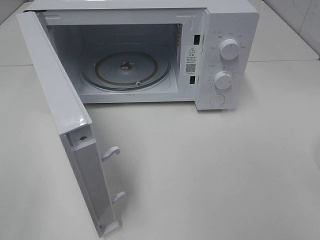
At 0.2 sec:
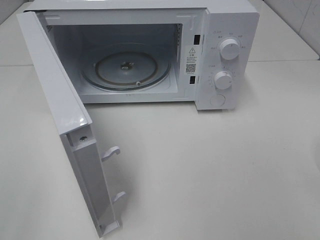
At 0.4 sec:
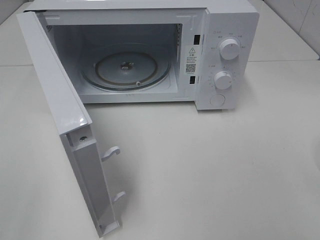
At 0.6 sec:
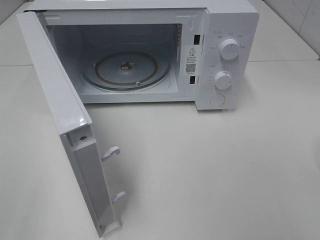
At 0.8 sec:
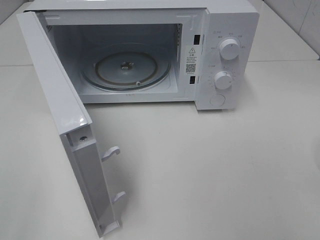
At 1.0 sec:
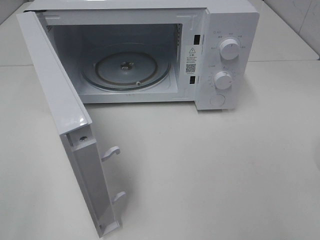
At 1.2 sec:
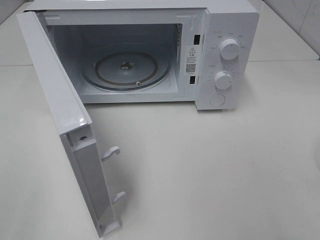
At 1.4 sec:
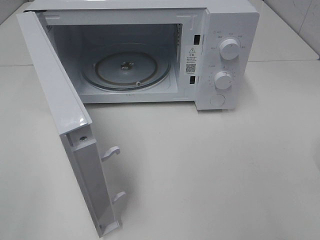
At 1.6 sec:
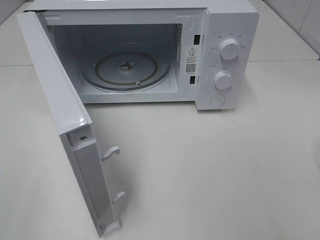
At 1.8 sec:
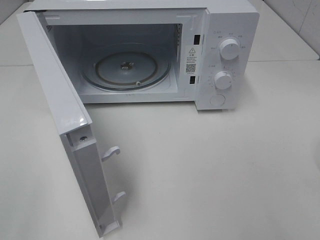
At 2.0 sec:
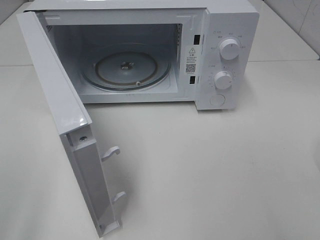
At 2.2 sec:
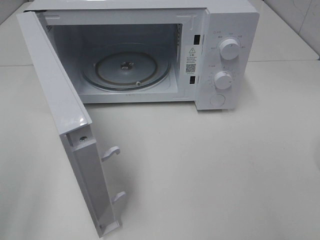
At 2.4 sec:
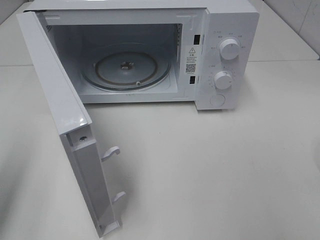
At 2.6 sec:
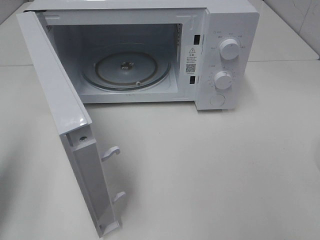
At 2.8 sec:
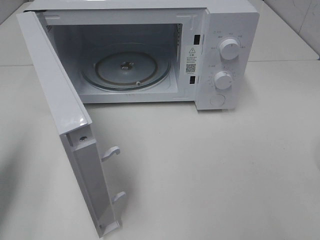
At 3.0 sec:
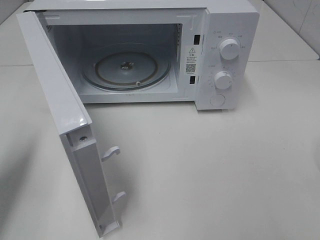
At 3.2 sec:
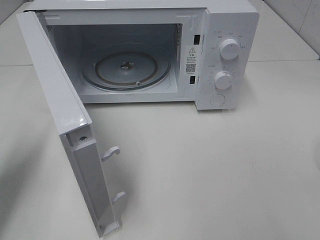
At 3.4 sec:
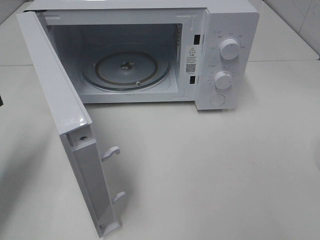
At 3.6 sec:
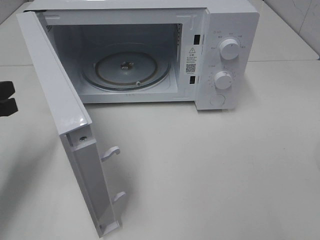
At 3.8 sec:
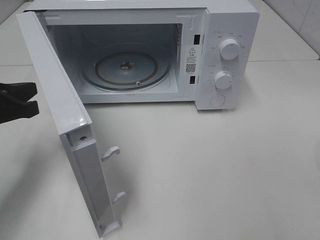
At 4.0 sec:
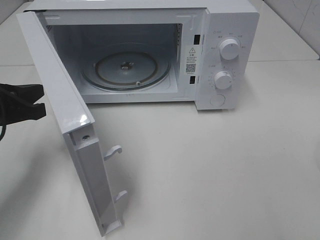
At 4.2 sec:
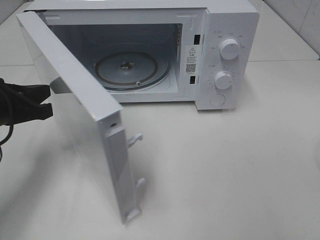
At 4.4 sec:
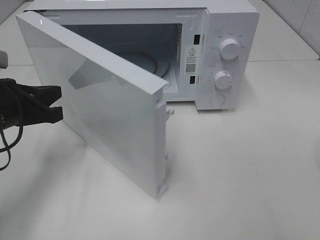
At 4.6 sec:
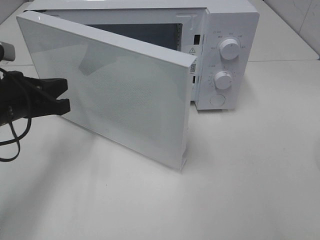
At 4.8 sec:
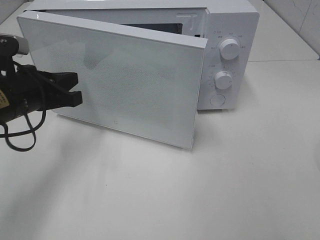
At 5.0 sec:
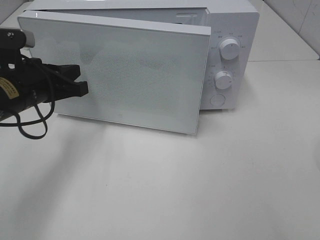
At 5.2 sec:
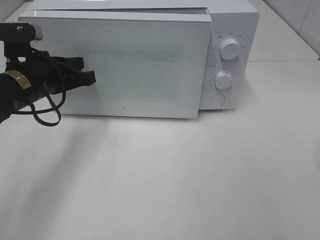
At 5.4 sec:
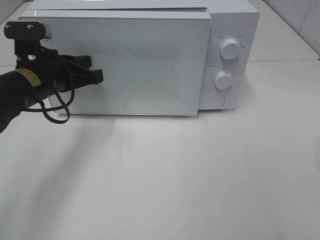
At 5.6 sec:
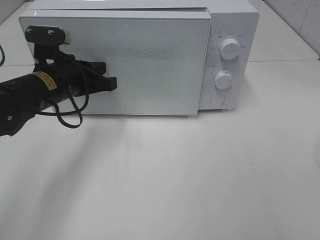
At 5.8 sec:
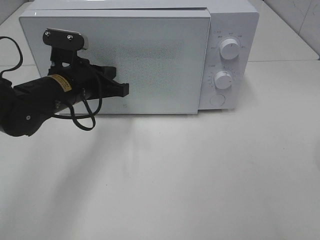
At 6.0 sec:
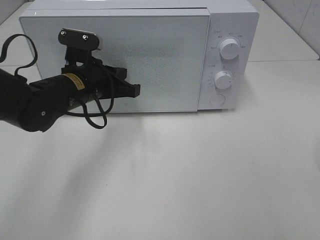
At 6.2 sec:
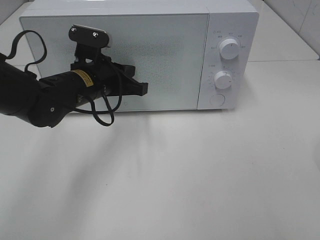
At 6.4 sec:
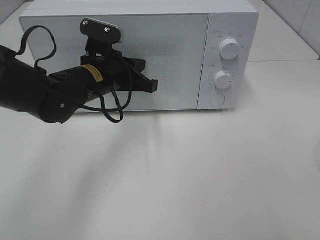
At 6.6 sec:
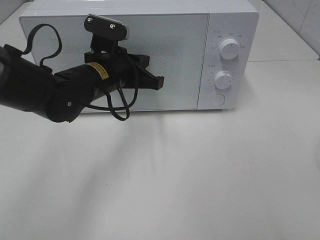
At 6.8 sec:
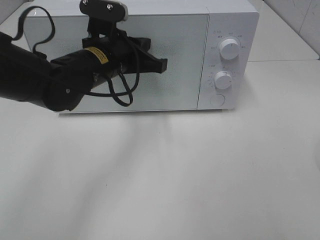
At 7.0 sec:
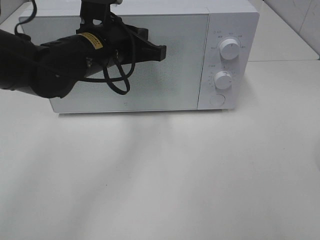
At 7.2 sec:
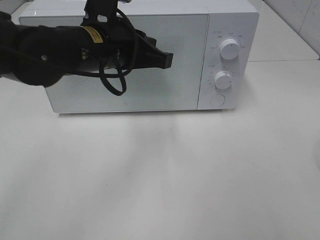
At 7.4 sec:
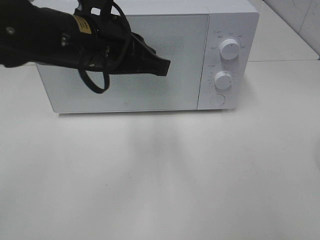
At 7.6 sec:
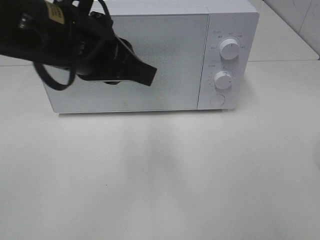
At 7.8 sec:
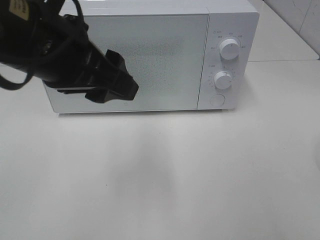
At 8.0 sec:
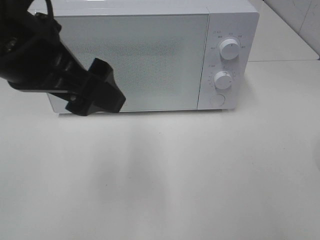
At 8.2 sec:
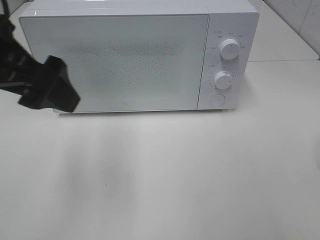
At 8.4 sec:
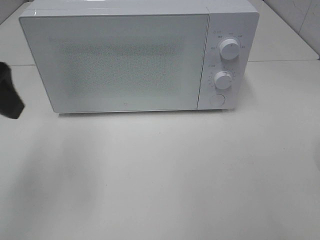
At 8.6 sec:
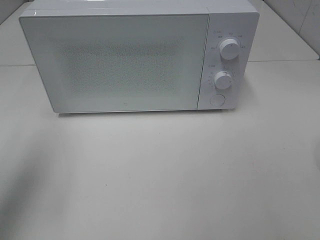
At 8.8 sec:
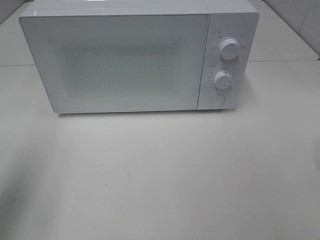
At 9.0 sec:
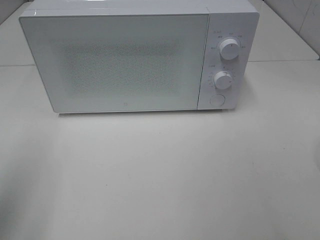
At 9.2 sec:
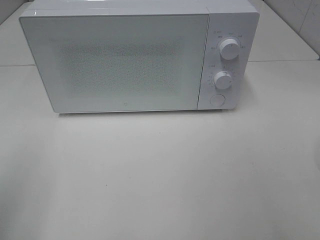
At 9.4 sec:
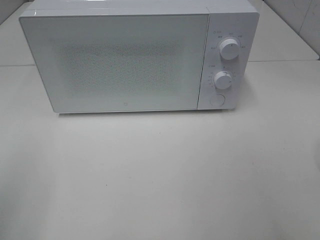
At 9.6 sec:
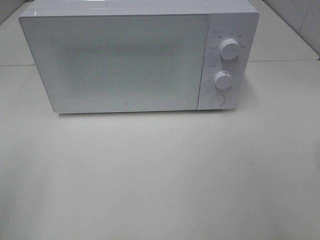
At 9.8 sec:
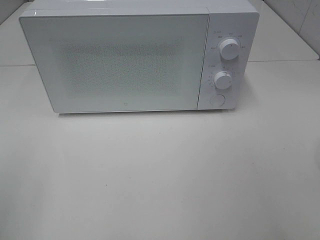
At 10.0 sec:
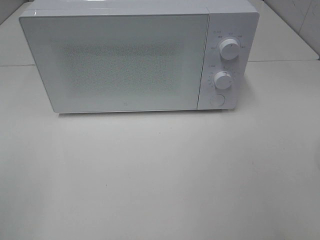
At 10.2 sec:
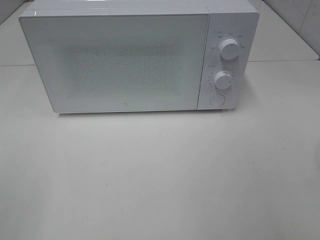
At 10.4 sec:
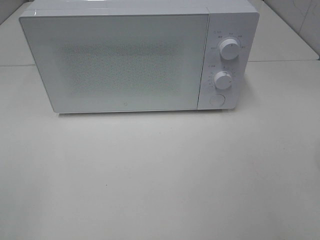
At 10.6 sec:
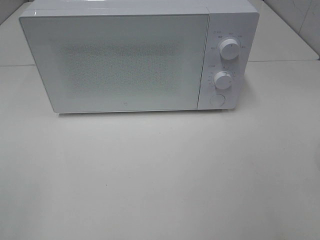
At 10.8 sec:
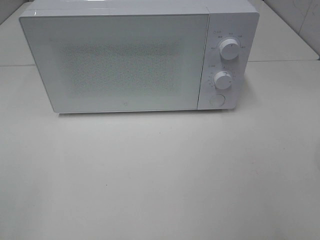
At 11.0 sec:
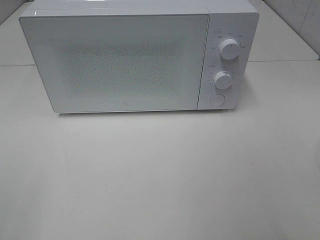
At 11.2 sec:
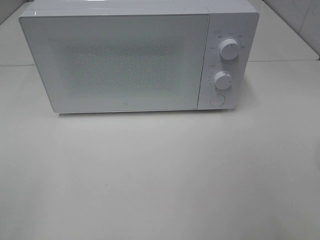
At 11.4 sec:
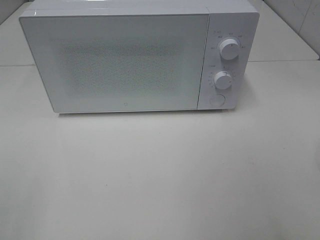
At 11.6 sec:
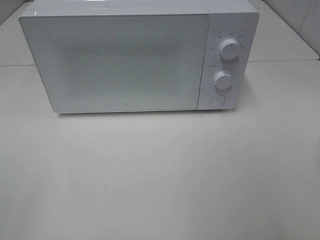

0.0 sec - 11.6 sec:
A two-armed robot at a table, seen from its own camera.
Task of the whole recording: Heat the burger.
Step, 0.0 sec - 6.8 sec: Left hand: close the microwave door.
0.0 sec - 1.4 sec: Neither gripper changes place.
1.4 sec - 2.8 sec: The left gripper moves forward, approximately 20 cm, and closes up.
2.8 sec - 4.4 sec: The left gripper heads to the right, downward and forward, covering roughly 15 cm.
4.4 sec - 5.8 sec: The left gripper travels to the right and forward by approximately 10 cm.
5.8 sec - 7.2 sec: The left gripper travels upward and to the right by about 10 cm.
7.2 sec - 8.8 sec: The left gripper shifts some 25 cm to the left and backward, and opens its fingers.
8.8 sec - 10.2 sec: The left gripper heads backward, covering about 15 cm.

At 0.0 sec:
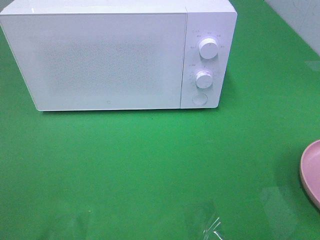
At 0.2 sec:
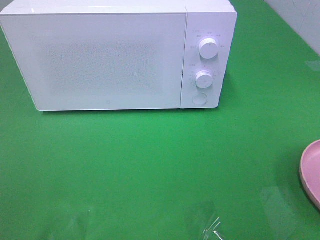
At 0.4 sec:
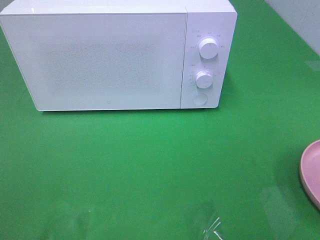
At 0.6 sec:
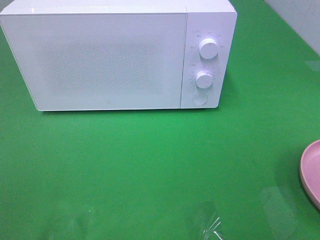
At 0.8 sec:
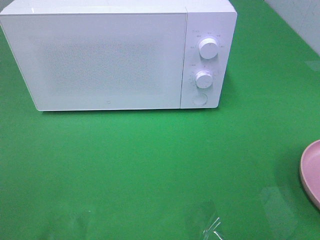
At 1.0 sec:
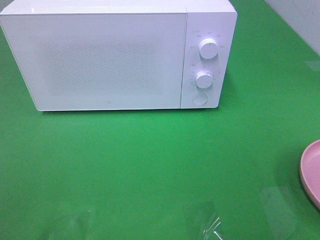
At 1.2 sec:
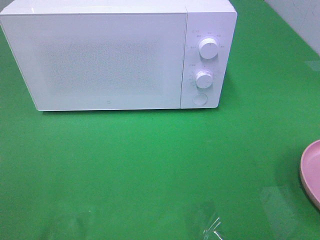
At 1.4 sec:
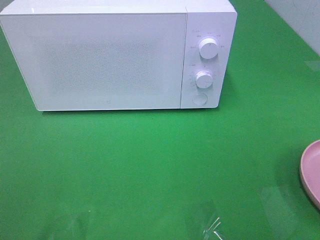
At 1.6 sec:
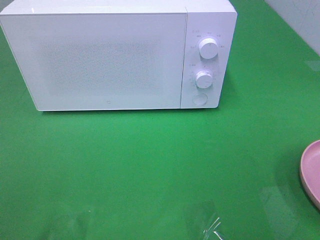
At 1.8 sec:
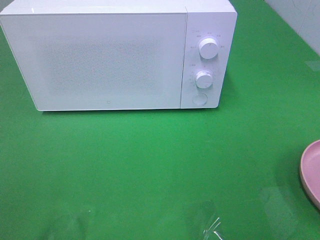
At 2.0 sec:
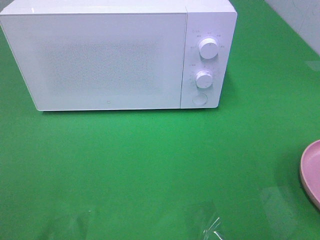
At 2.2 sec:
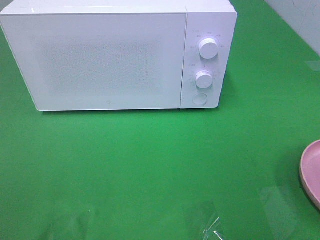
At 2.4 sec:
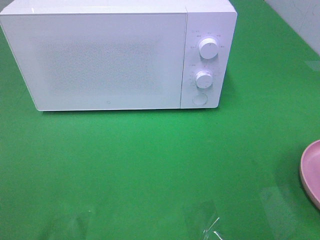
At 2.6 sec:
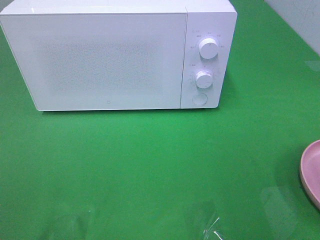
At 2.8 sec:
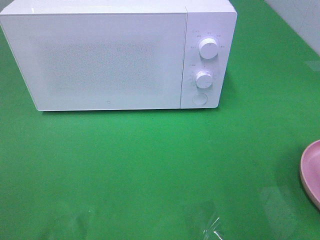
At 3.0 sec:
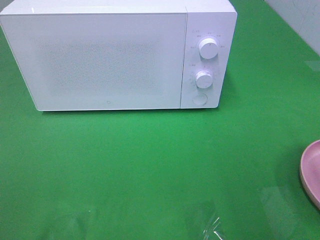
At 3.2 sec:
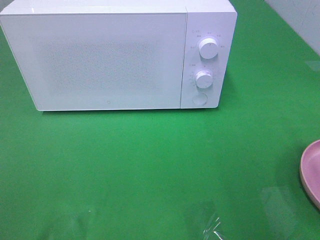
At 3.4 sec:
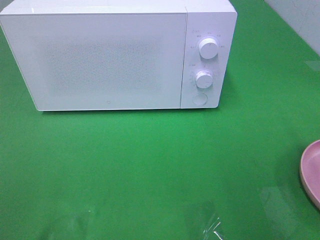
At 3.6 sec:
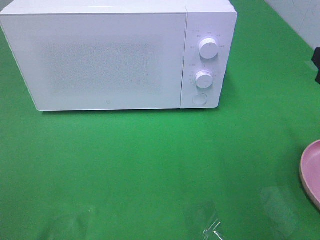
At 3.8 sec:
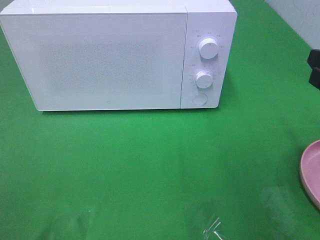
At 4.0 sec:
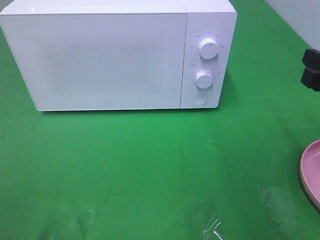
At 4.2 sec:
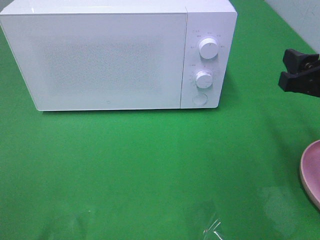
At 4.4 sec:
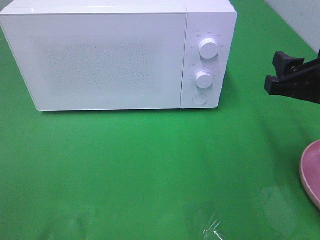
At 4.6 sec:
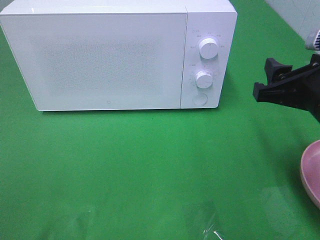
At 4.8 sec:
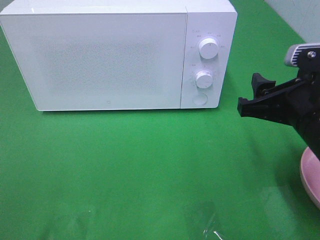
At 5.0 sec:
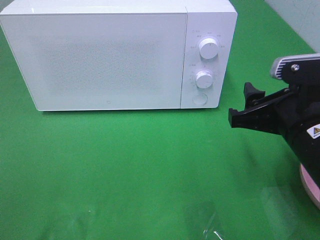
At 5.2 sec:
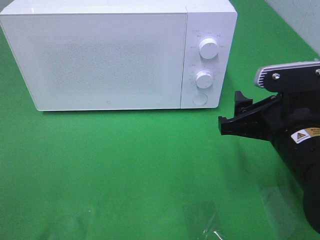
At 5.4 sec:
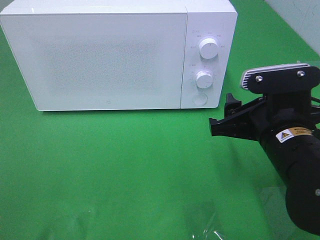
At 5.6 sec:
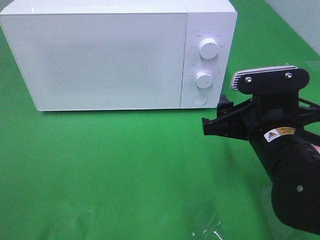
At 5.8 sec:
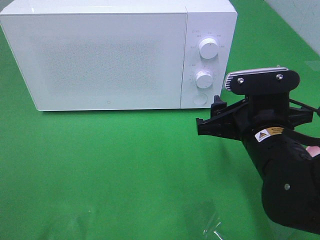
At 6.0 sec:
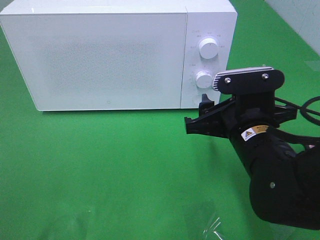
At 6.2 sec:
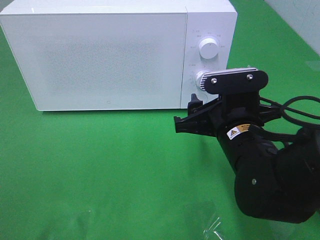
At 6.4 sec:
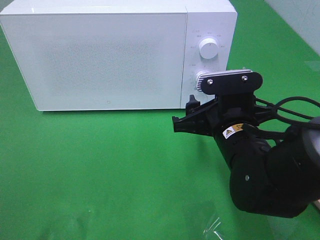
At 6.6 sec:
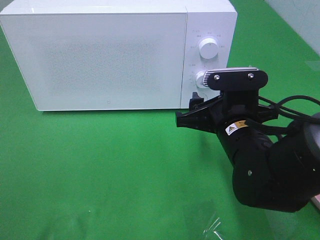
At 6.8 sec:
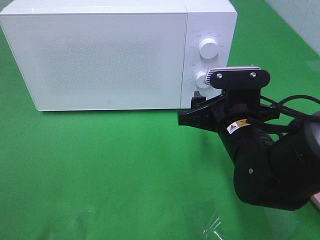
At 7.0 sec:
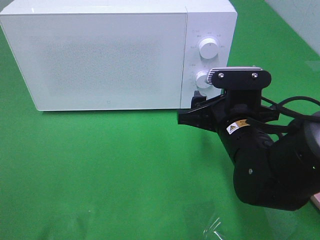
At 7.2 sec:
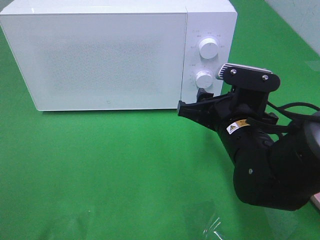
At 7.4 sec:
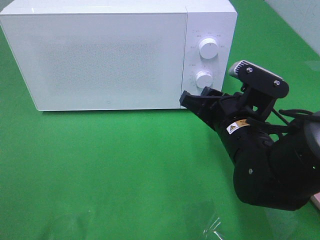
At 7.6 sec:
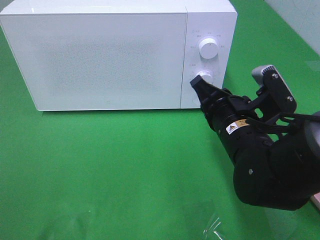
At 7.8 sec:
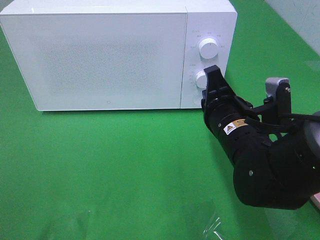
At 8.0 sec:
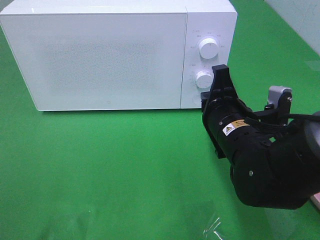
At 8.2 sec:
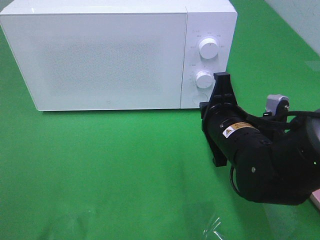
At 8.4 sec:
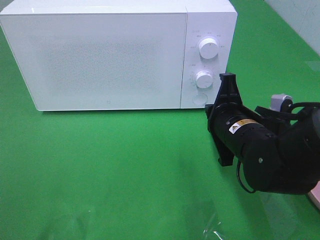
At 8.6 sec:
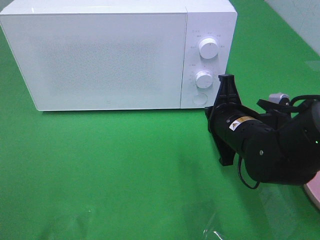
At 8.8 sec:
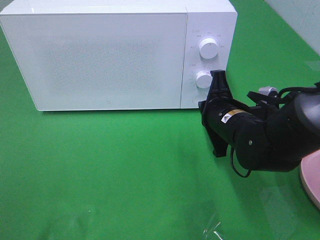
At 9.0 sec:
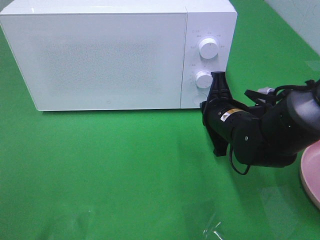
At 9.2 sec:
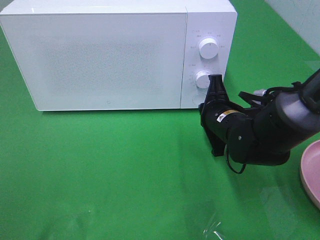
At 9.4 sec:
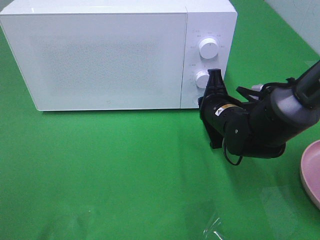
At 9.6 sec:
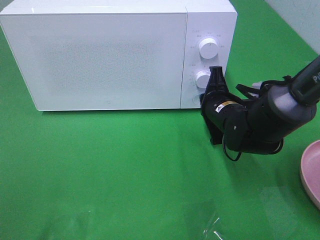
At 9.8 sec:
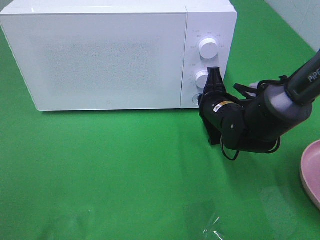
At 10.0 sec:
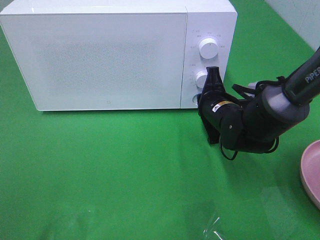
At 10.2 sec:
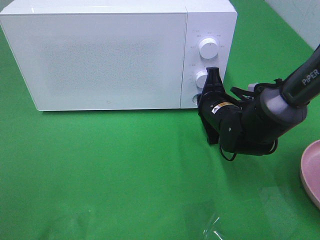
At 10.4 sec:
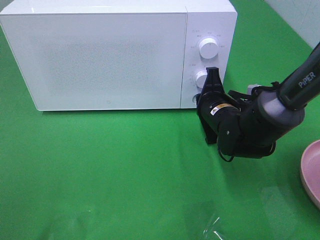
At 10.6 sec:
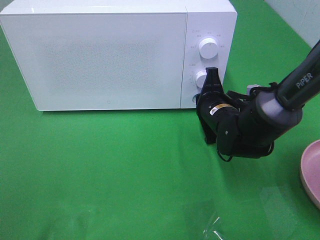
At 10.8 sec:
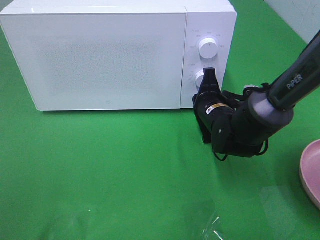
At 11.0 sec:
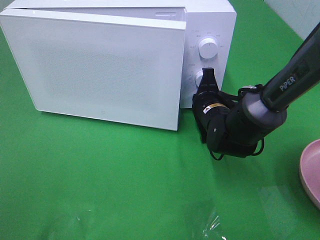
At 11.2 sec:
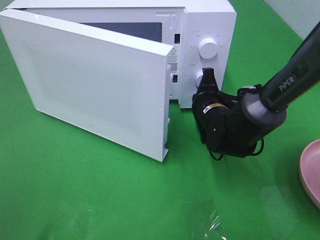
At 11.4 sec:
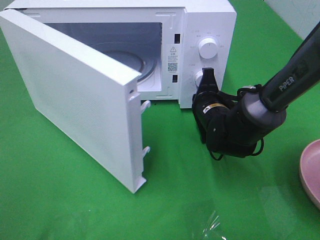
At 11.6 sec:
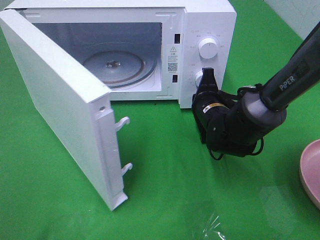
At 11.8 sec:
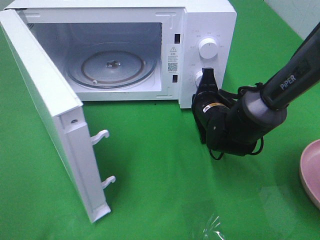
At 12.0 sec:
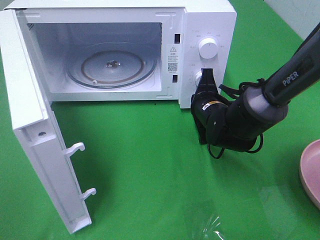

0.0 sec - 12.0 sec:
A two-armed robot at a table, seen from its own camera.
Task of the whole recording: Heat the burger.
3.0 sec - 4.4 sec: The right gripper goes roughly 5 cm forward.
4.4 sec - 6.0 sec: The right gripper travels to the left and downward by about 10 cm.
6.0 sec - 7.6 sec: The right gripper closes up.
7.6 sec - 9.0 sec: The right gripper travels forward by approximately 5 cm.
9.0 sec - 10.4 sec: There are only small adjustments of the grippers.
